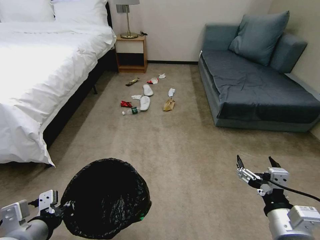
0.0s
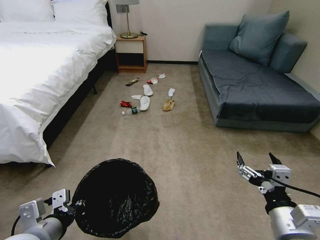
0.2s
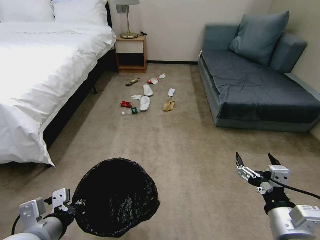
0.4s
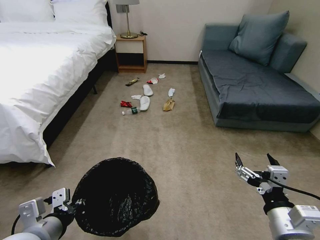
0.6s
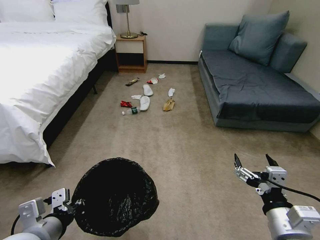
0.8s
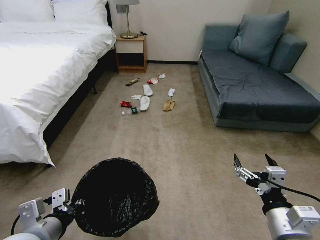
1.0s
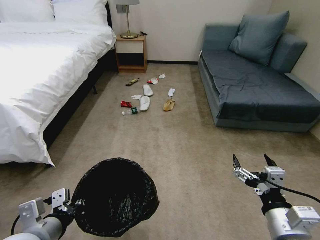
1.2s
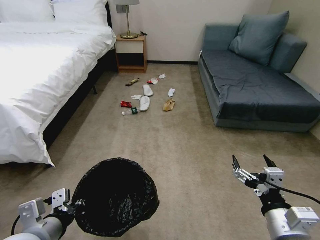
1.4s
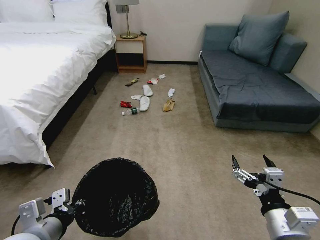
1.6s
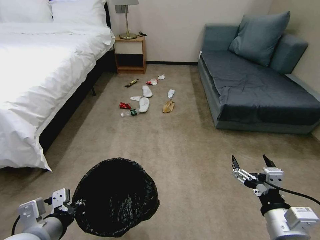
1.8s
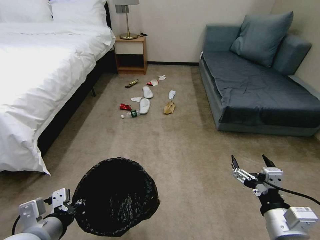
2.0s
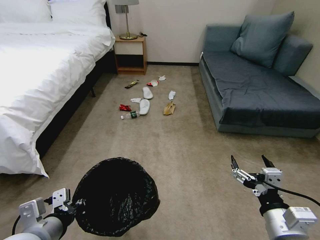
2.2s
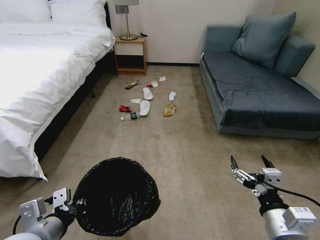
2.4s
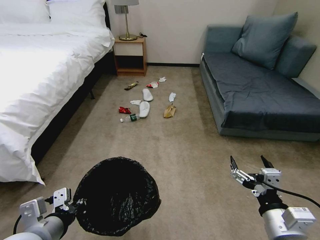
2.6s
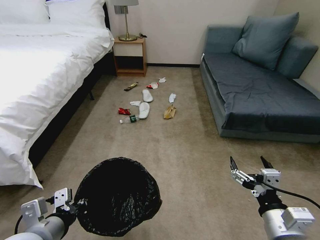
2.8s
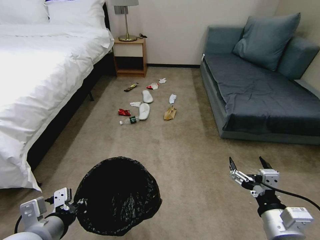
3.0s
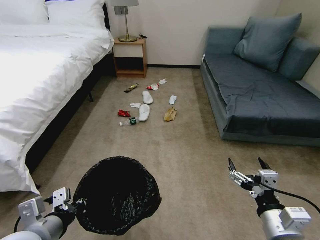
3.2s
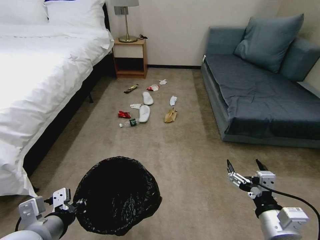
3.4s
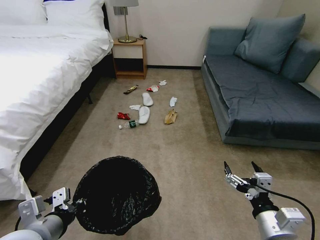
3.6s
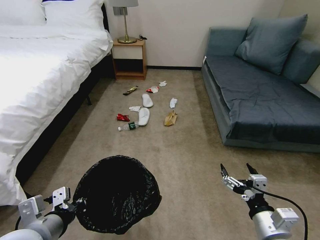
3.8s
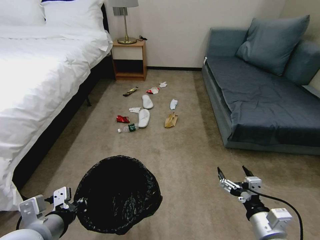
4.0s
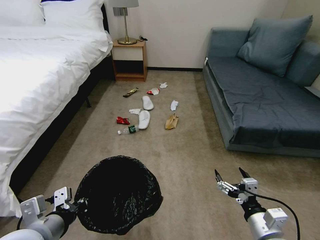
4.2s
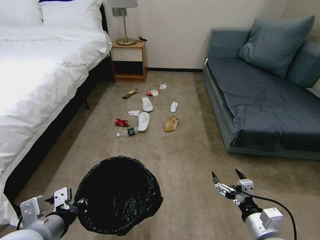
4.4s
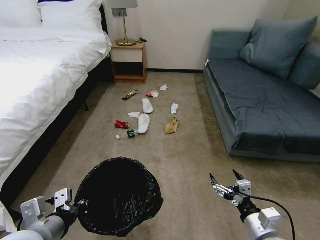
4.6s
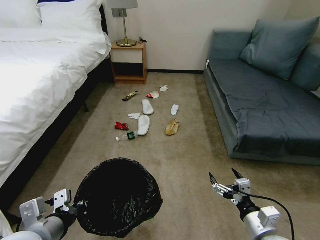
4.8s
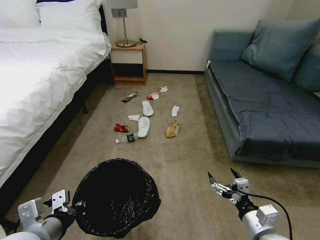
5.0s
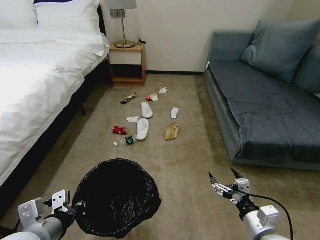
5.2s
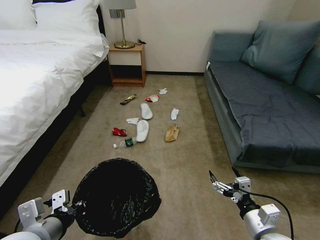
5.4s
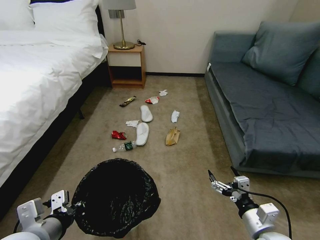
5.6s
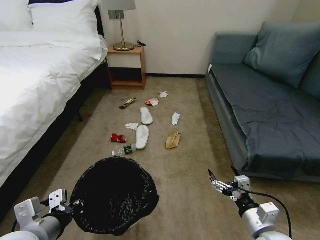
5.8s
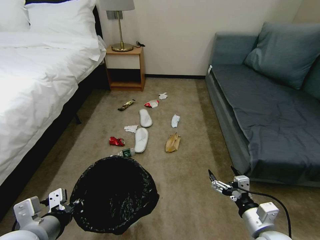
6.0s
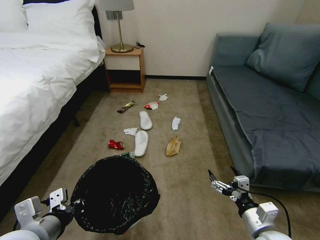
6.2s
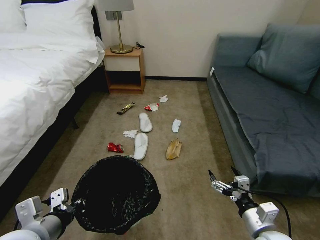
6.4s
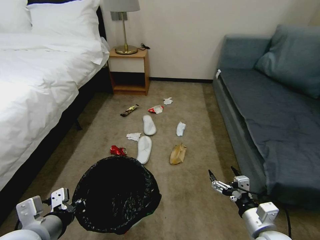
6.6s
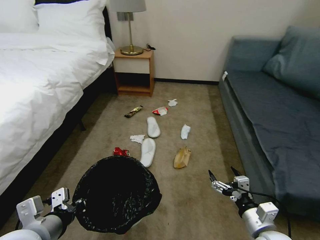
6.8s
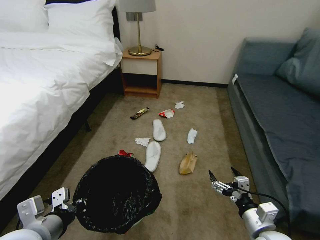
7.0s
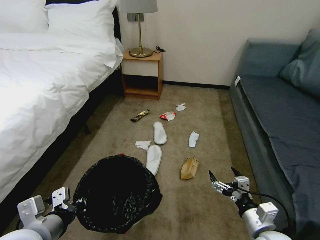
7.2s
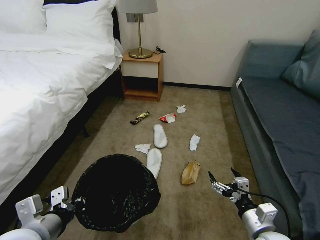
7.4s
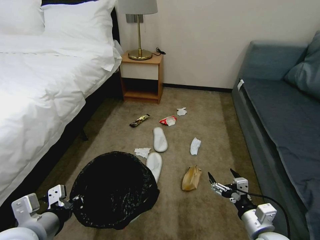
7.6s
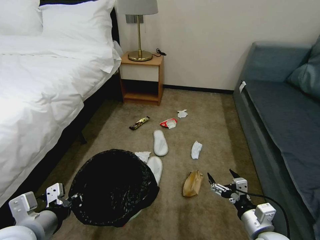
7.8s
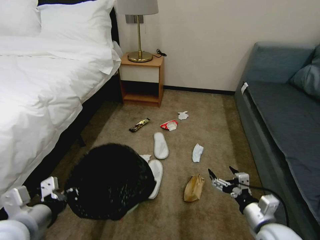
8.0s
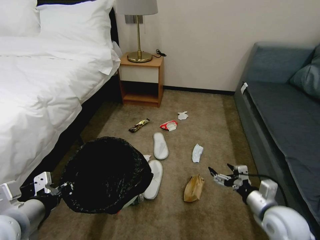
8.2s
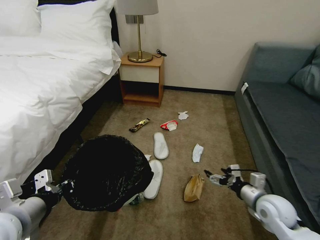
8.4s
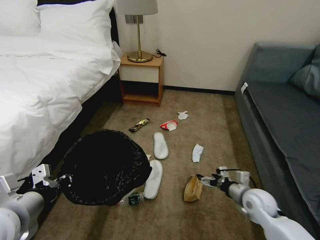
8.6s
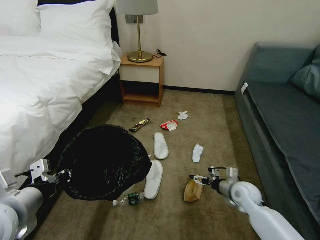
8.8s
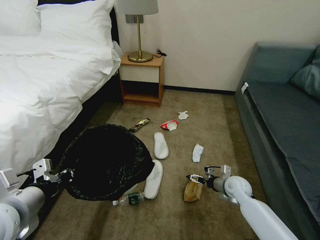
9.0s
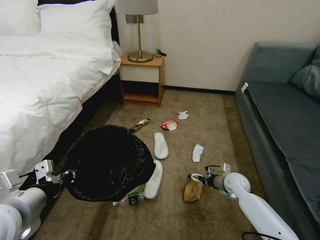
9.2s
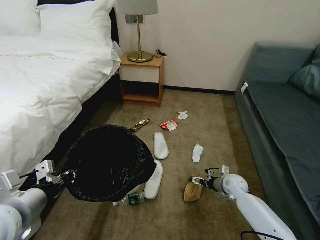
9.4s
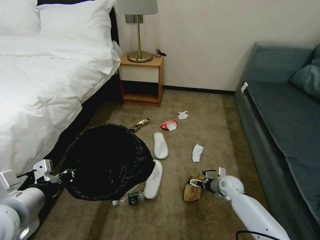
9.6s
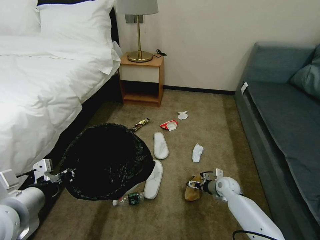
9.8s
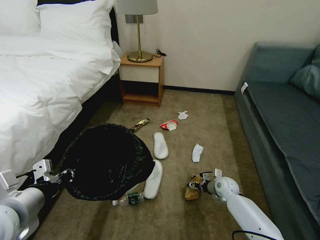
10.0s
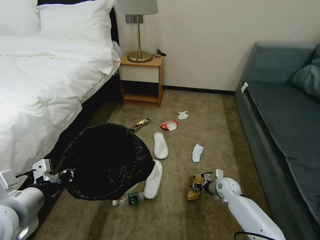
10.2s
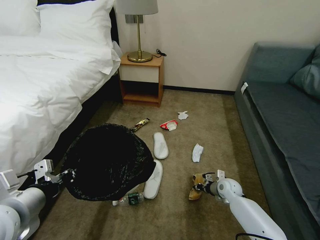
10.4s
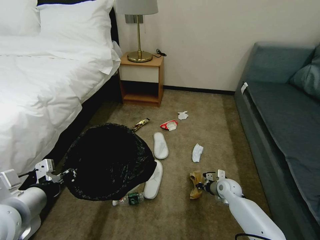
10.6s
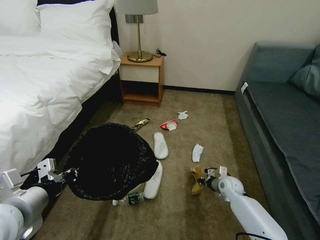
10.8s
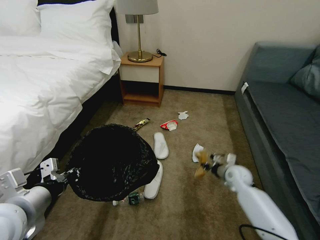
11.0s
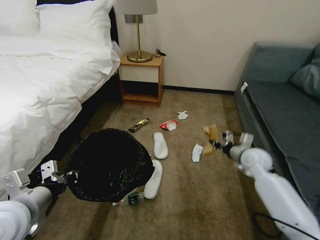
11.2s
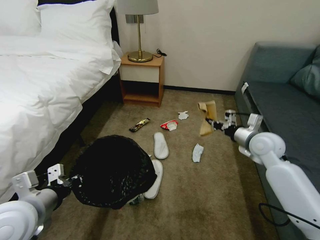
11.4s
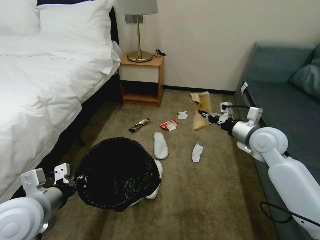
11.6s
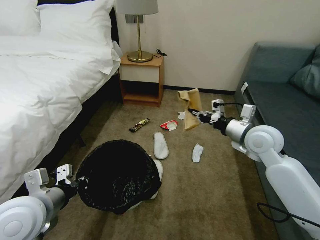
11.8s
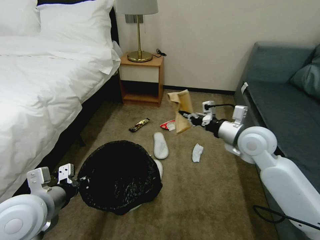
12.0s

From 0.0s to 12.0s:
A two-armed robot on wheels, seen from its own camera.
Task of the whole recording: Pick up the trash bin, then pick up the garbage on the floor and place it into the trash bin.
From 3.0s to 4.4s: The right gripper is displaced downward by about 10 cm.
From 7.6s to 9.0s: The right gripper travels forward and downward by some 25 cm. Meanwhile the left gripper heads upward, covering approximately 5 cm.
From 9.0s to 10.4s: The right gripper goes about 5 cm downward, and closes up.
From 10.4s to 12.0s: The right gripper goes roughly 30 cm upward.

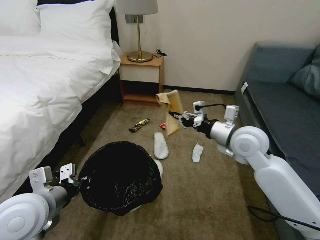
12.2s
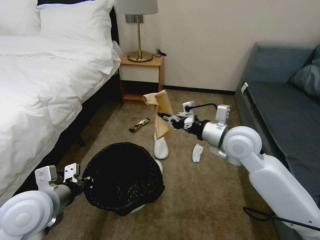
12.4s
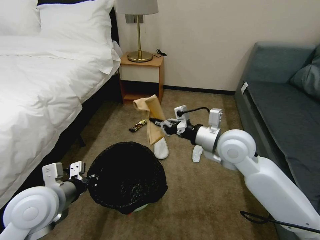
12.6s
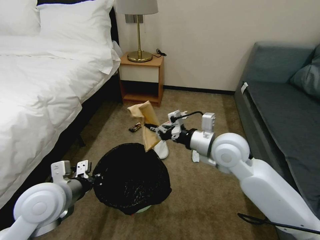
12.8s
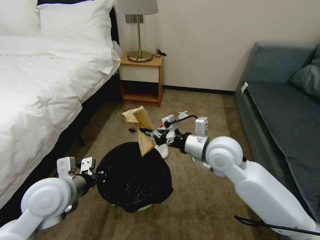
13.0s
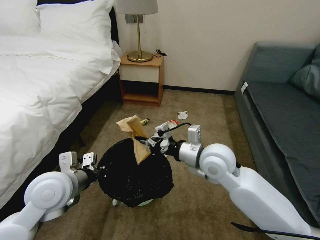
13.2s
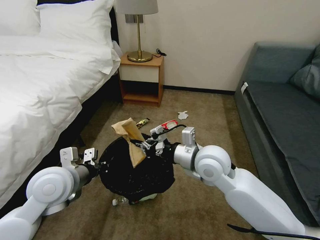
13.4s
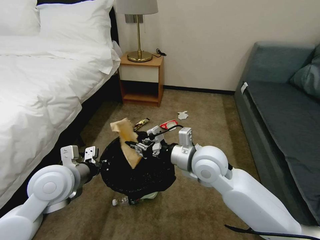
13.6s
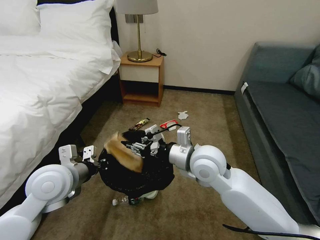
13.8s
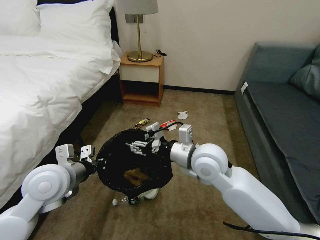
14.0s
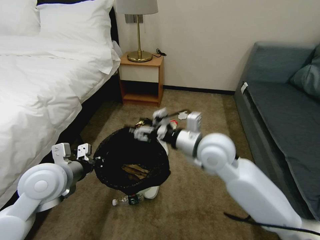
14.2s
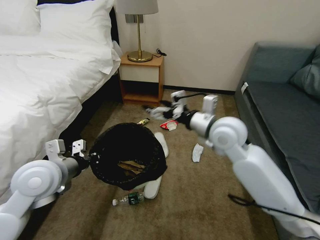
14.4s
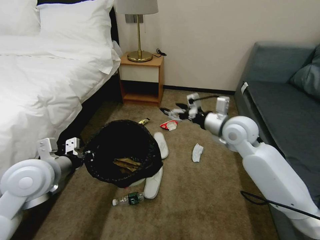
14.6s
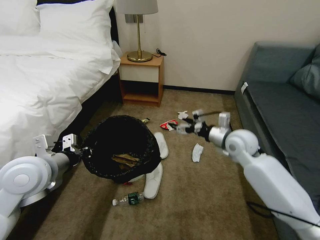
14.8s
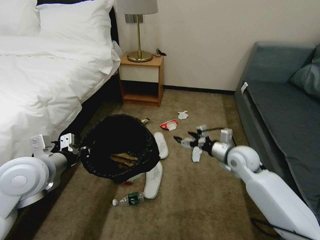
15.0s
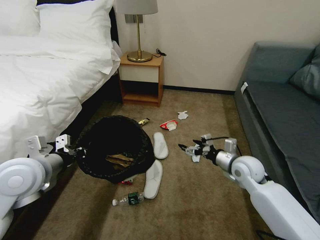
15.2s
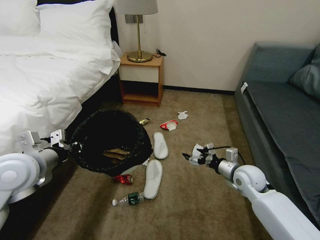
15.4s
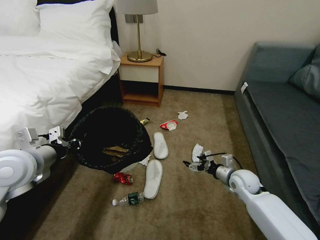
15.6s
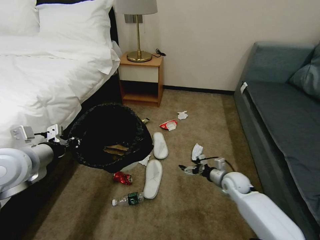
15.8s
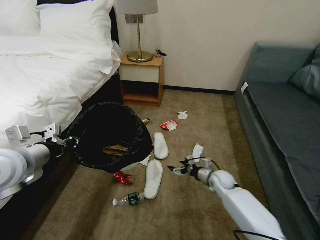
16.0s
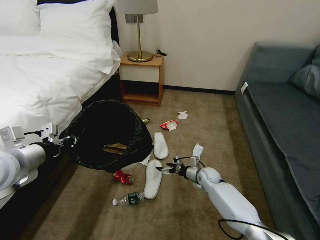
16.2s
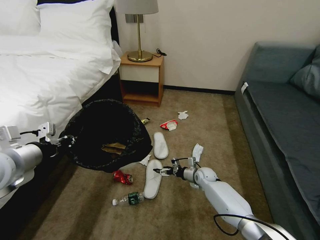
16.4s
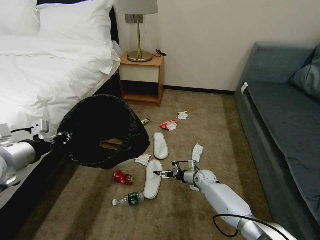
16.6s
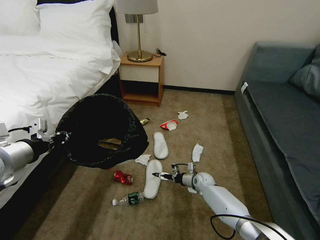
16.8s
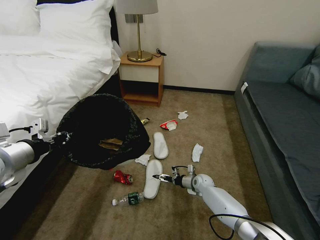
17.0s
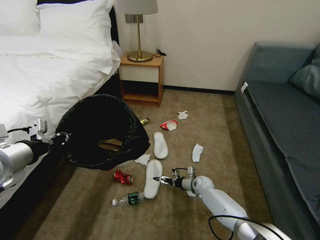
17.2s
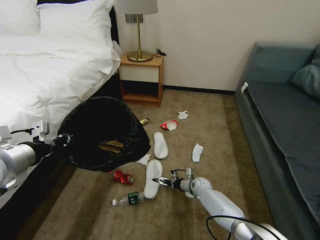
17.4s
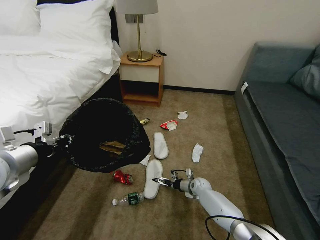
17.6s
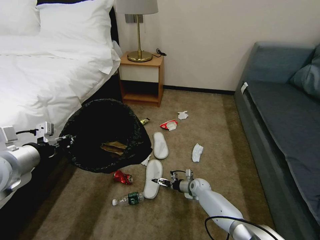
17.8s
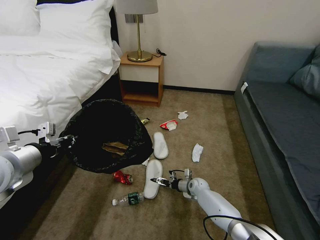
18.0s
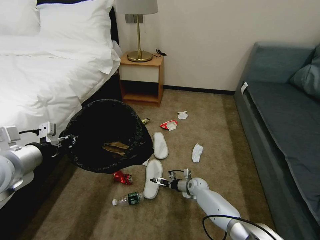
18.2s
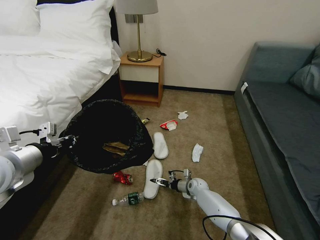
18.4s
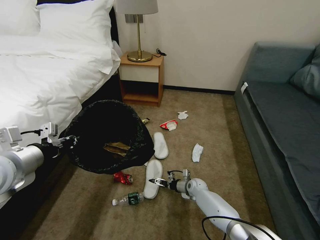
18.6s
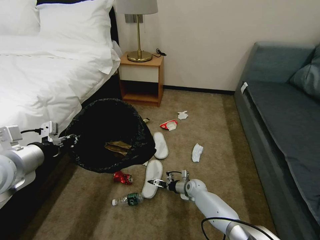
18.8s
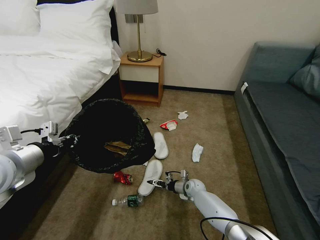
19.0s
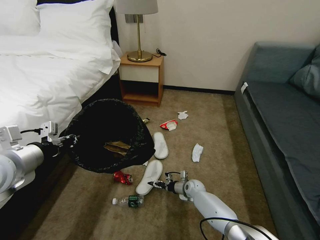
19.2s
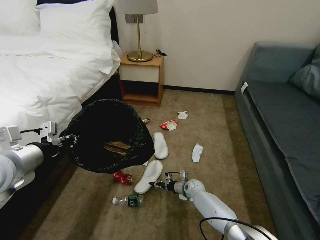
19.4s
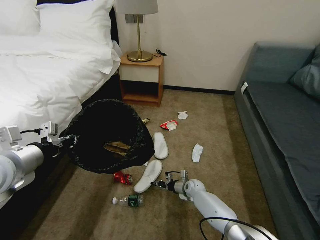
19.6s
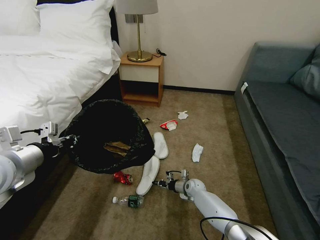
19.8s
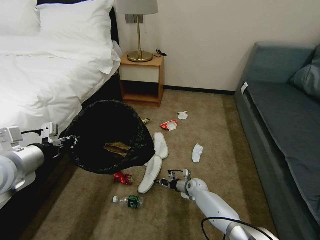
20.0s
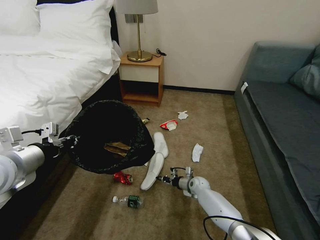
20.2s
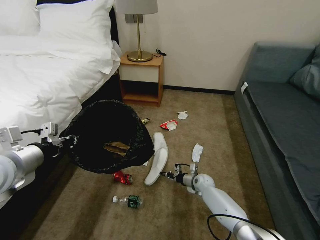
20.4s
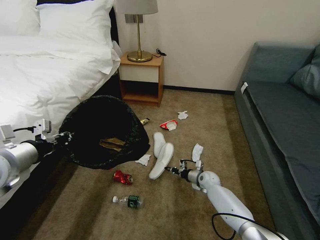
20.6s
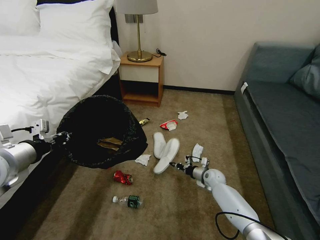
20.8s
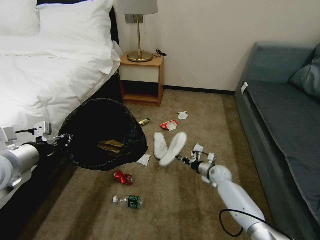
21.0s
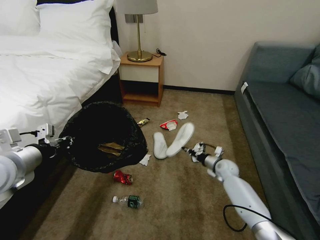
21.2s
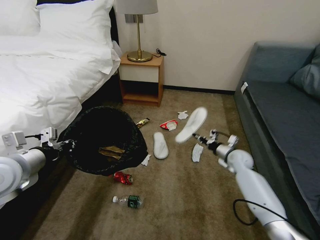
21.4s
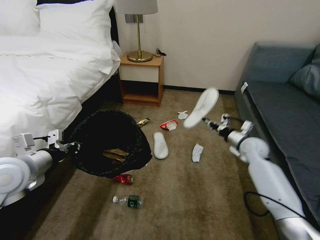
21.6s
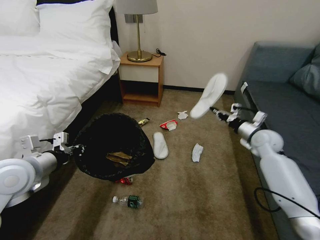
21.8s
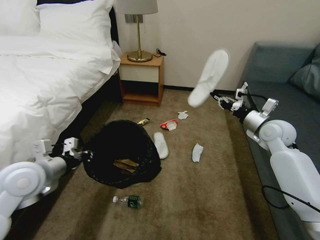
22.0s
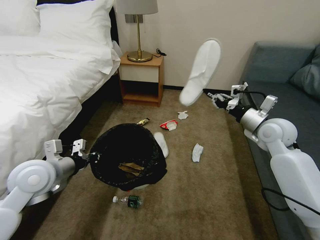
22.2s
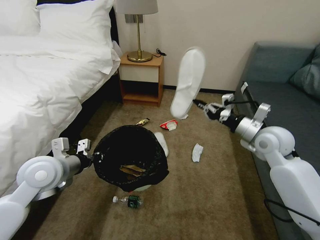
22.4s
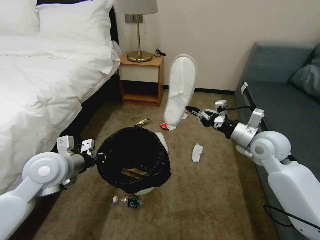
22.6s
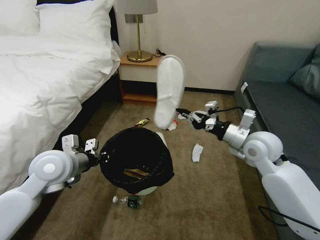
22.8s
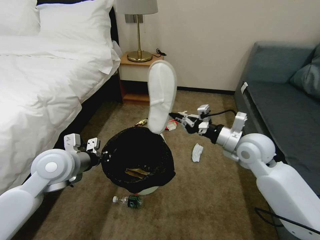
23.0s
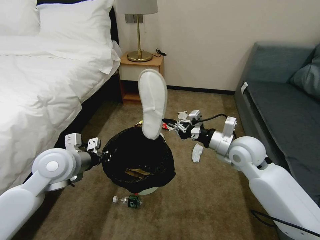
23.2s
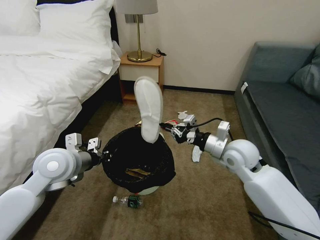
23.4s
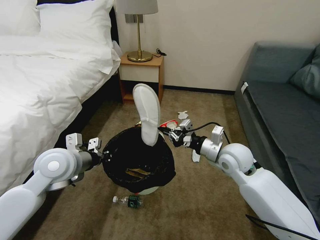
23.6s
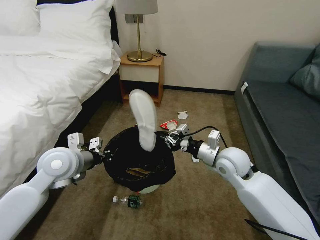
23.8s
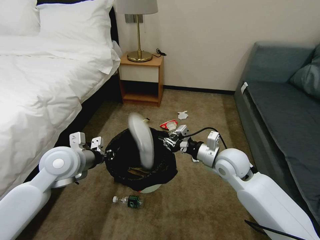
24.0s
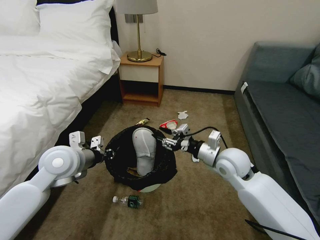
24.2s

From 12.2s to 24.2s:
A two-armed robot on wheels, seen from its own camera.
Task of the whole recording: Pick up the trash bin, then pick up the garbage on the floor and place it into the trash bin.
From 12.2s to 13.8s: The left gripper travels forward by approximately 10 cm, while the right gripper moves to the left and backward, some 15 cm, and opens.
From 13.8s to 15.2s: The left gripper is displaced to the left by some 5 cm, while the right gripper travels to the right and downward by about 20 cm, and opens.
From 15.2s to 16.6s: The left gripper goes about 5 cm to the left, while the right gripper goes some 20 cm downward.
From 16.6s to 18.2s: The right gripper changes place by some 5 cm.
From 18.2s to 19.8s: The right gripper closes its fingers.
From 19.8s to 21.2s: The right gripper travels to the right and upward by approximately 20 cm.
From 21.2s to 22.6s: The right gripper shifts approximately 25 cm upward. The left gripper is displaced to the right by some 10 cm.
From 22.6s to 24.2s: The right gripper shifts about 10 cm to the left and downward, and opens.
